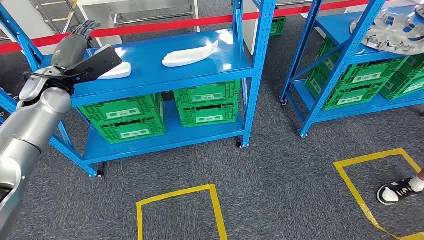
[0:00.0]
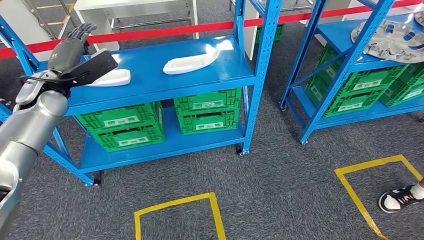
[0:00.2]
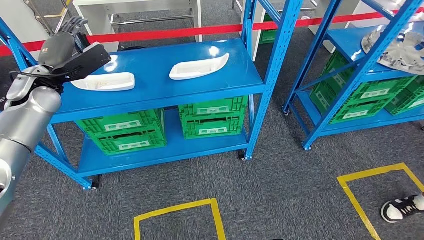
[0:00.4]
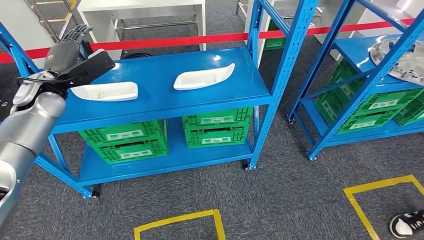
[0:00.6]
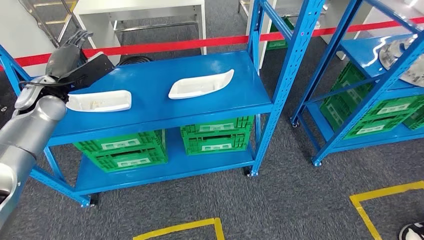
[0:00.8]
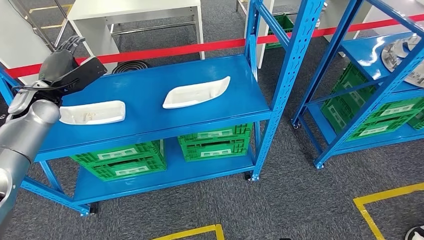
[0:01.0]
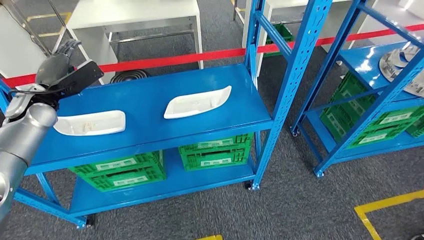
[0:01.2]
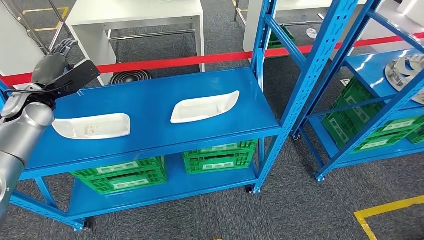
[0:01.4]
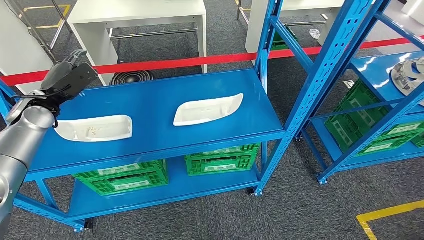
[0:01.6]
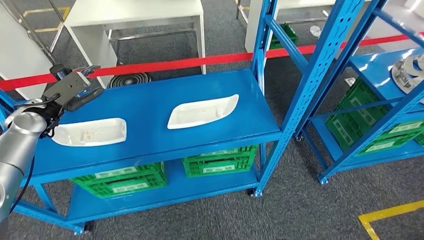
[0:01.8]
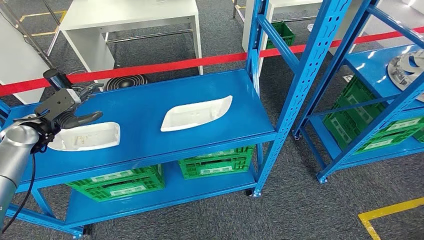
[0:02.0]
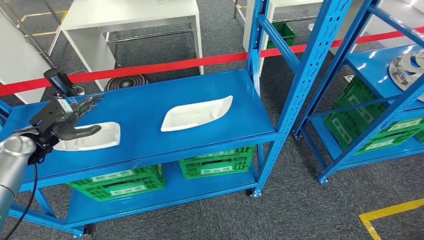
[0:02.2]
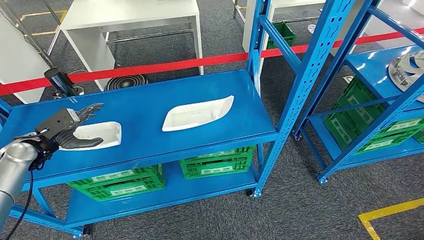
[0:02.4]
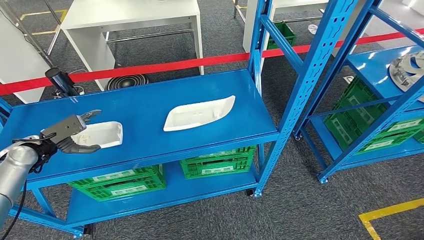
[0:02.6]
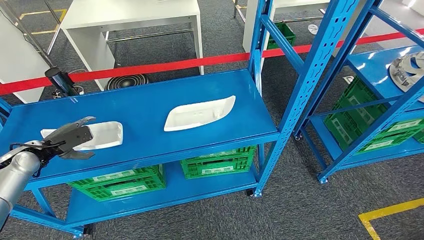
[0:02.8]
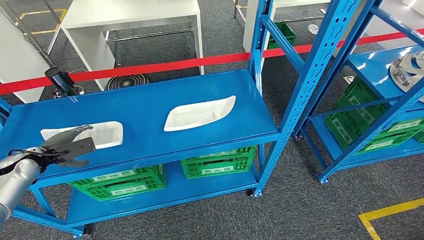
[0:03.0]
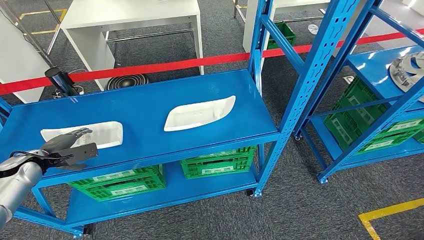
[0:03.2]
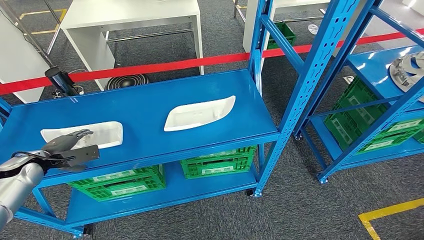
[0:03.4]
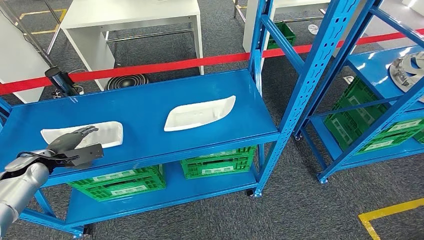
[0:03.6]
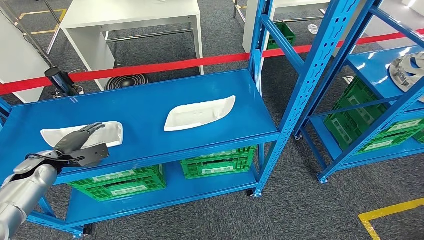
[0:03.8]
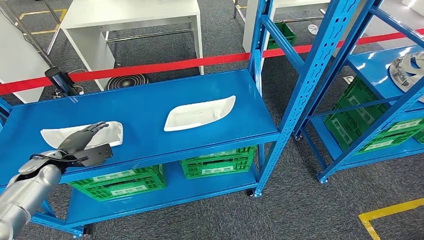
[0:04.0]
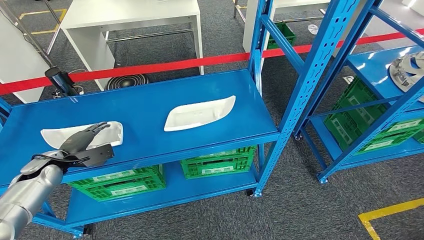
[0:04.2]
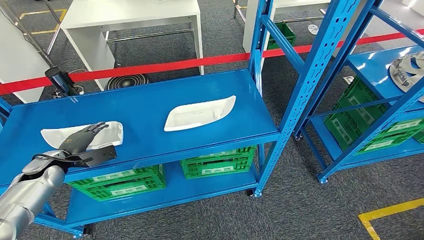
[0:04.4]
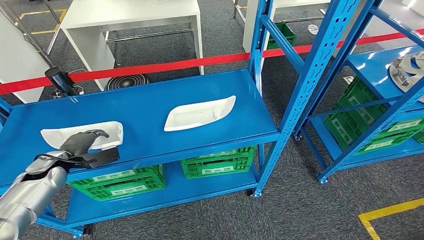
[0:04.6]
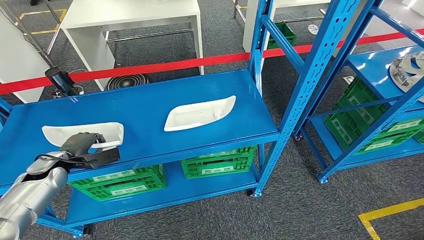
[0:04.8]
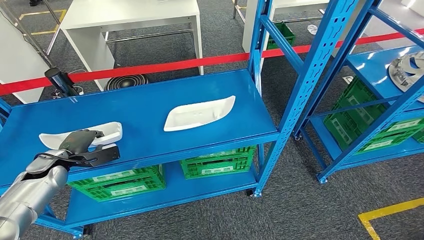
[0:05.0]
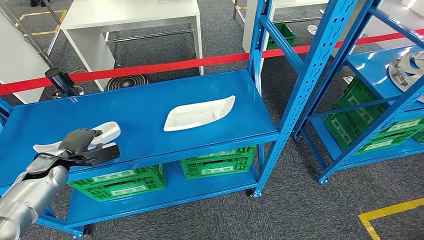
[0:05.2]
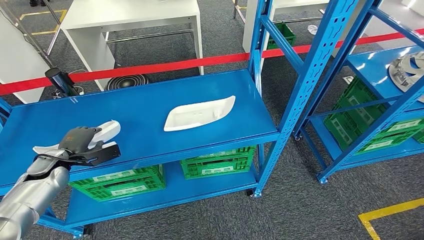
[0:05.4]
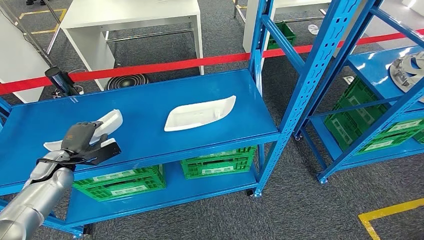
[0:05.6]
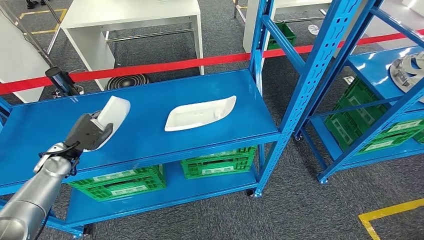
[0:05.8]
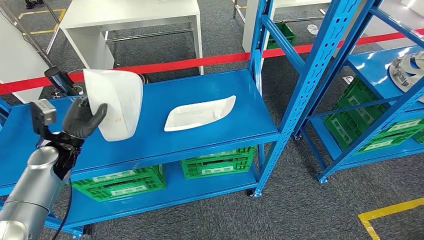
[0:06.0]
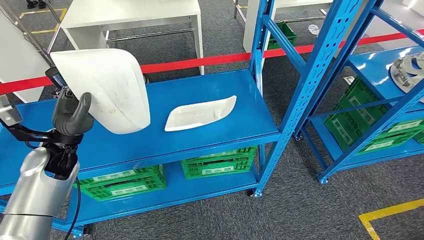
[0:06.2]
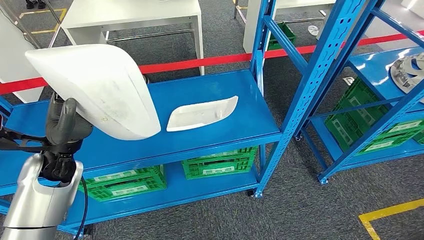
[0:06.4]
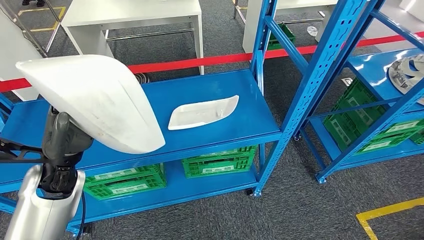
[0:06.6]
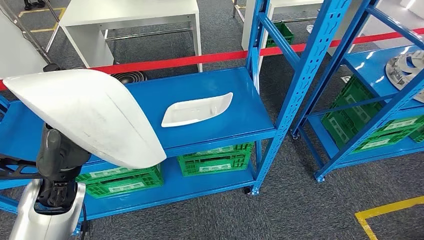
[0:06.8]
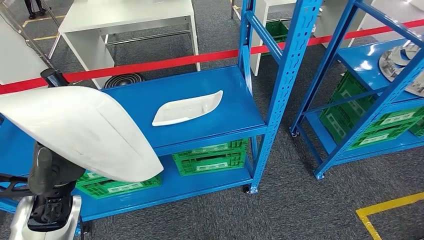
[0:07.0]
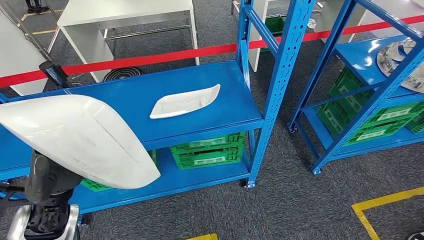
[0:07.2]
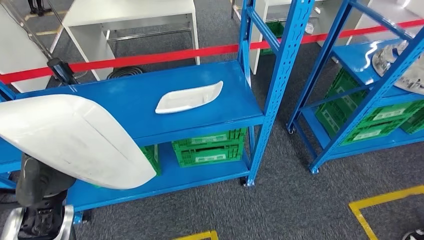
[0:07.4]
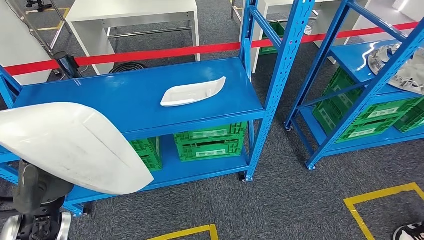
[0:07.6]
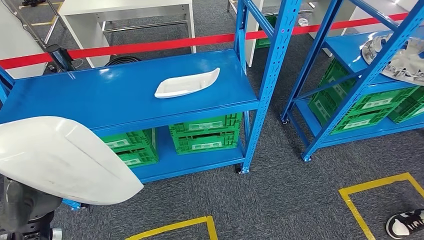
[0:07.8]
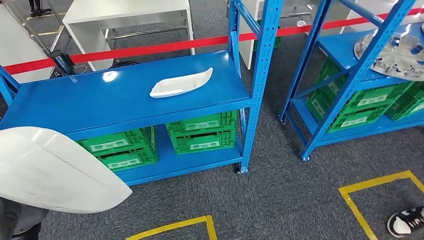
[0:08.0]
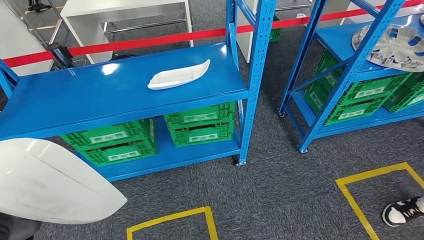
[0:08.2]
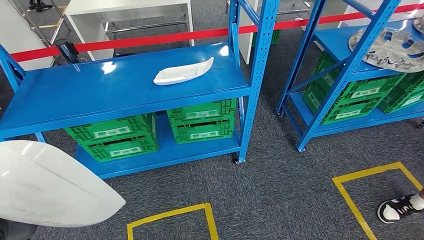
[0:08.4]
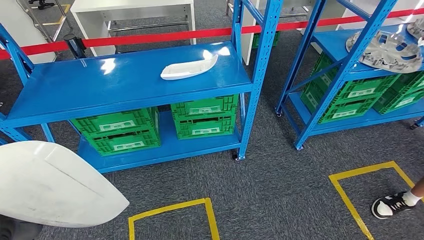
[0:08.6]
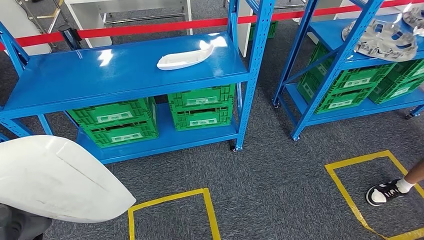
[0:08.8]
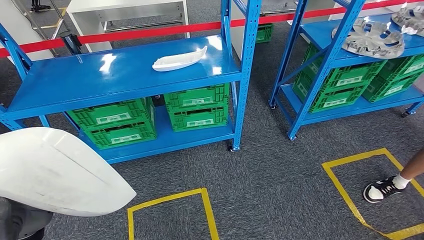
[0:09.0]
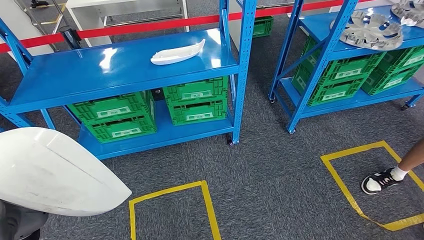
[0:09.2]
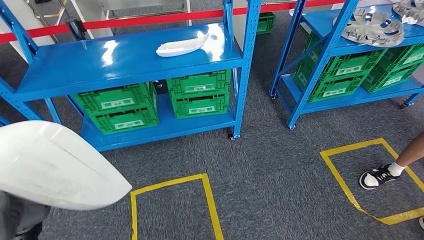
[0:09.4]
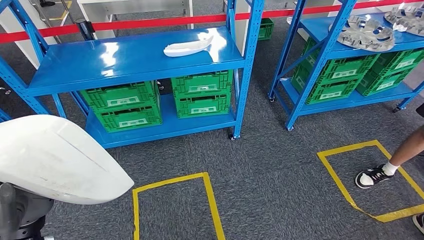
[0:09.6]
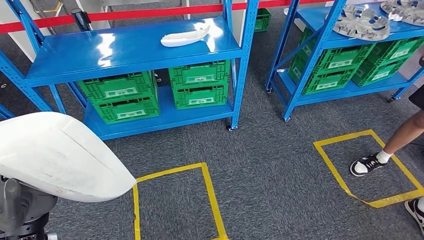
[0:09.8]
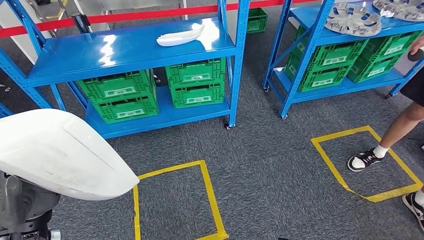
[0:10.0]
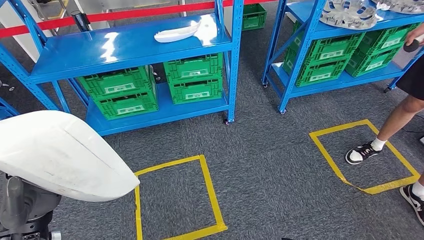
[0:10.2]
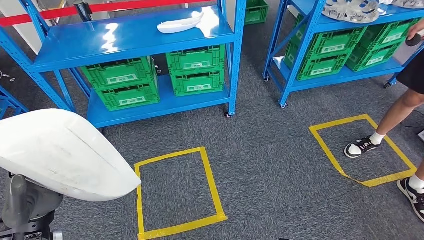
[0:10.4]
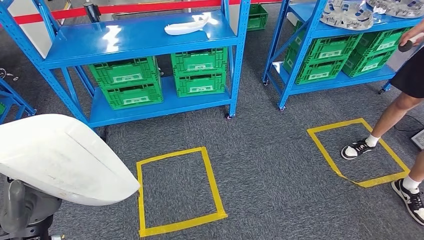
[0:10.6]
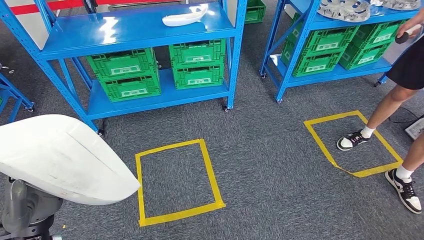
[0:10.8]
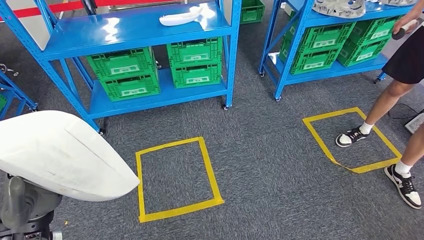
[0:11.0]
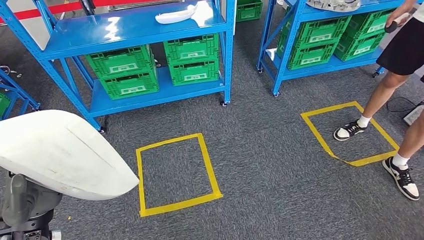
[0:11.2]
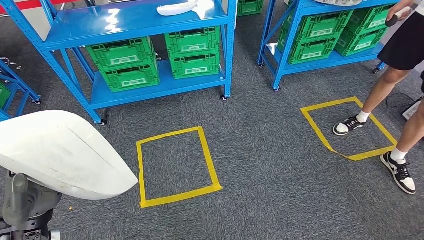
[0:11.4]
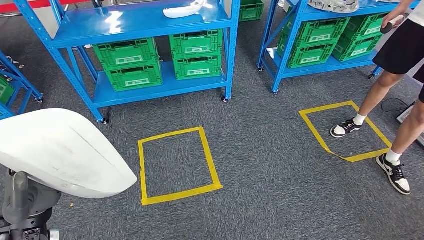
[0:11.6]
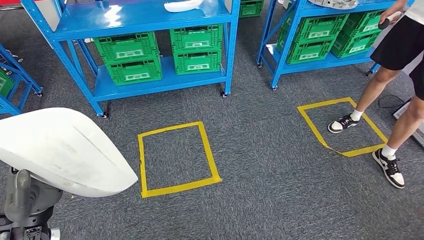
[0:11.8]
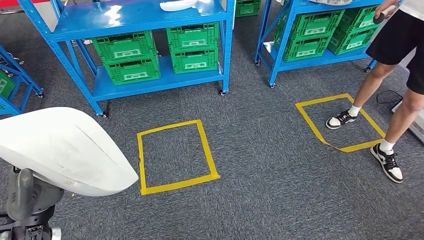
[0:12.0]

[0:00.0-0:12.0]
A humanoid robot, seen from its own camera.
Step, 0:00.0 to 0:07.8: Pick up the small parts from the shelf.
0:03.0 to 0:04.4: The left hand ends up roughly 5 cm from where it was.
0:04.4 to 0:06.0: The left hand moves to the right, roughly 5 cm.

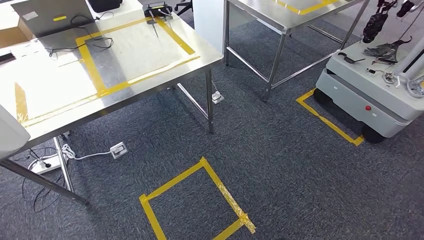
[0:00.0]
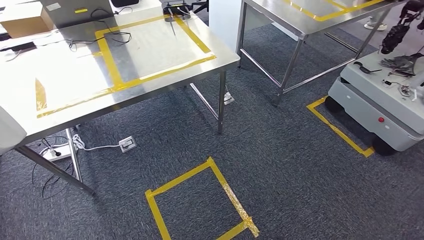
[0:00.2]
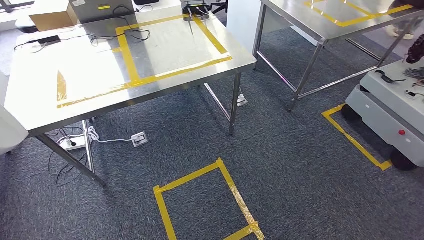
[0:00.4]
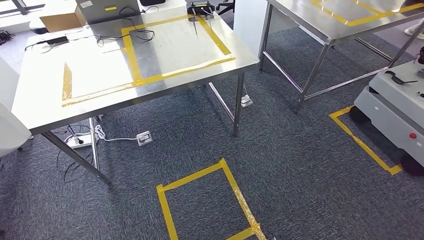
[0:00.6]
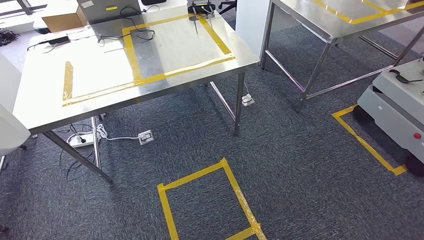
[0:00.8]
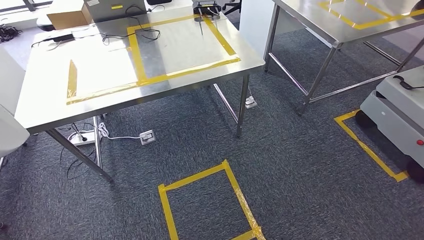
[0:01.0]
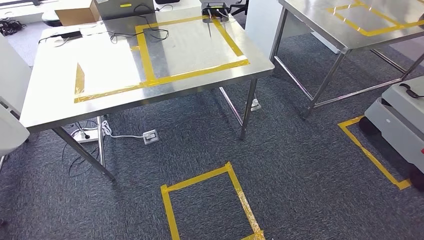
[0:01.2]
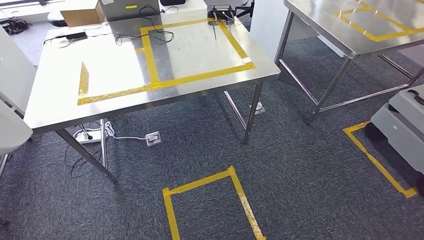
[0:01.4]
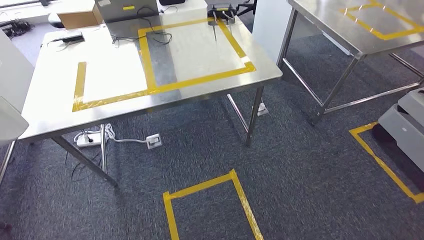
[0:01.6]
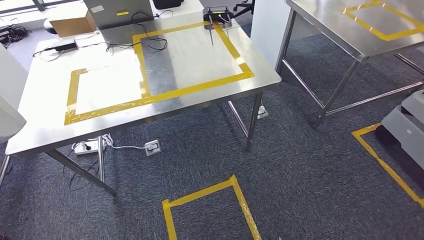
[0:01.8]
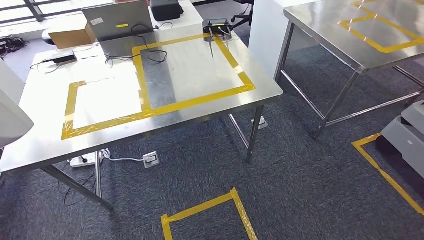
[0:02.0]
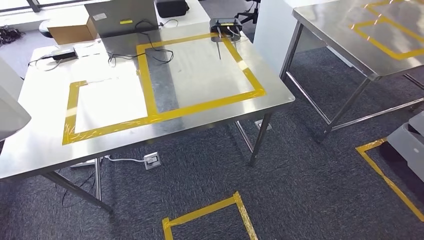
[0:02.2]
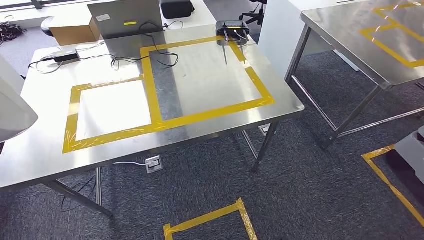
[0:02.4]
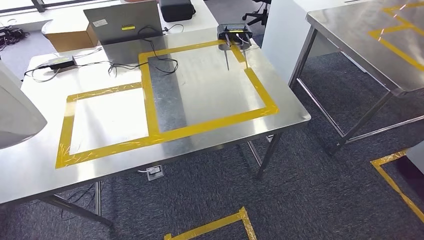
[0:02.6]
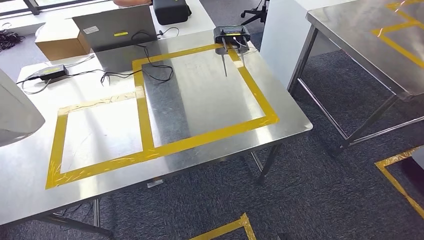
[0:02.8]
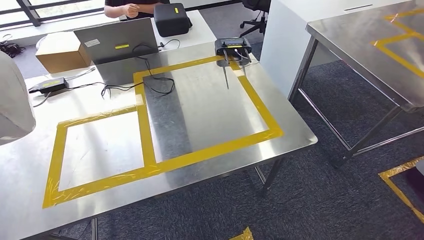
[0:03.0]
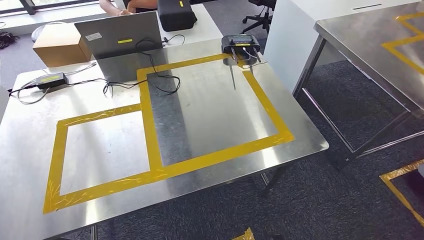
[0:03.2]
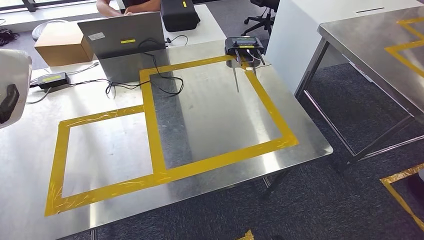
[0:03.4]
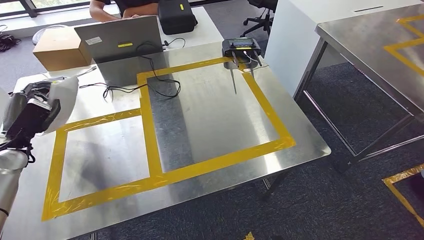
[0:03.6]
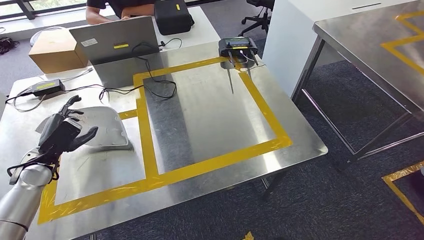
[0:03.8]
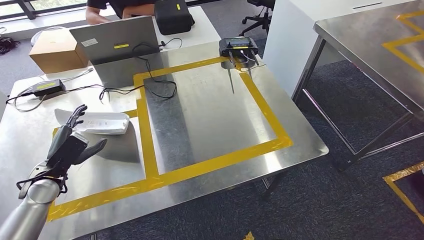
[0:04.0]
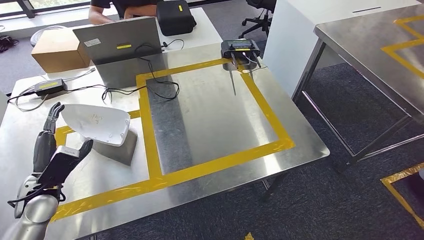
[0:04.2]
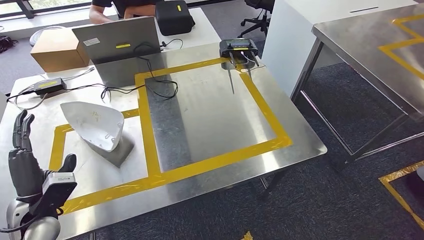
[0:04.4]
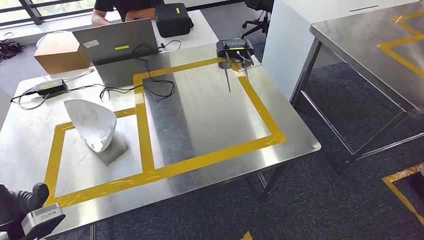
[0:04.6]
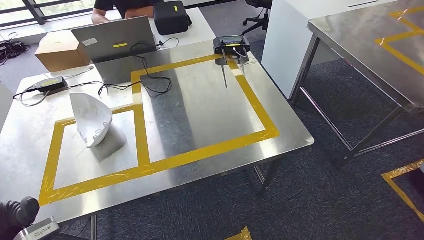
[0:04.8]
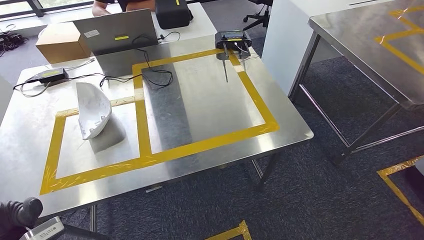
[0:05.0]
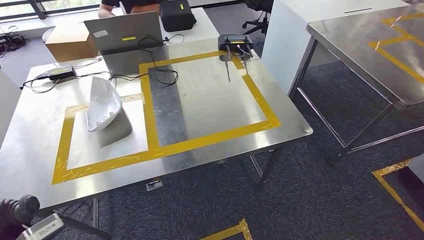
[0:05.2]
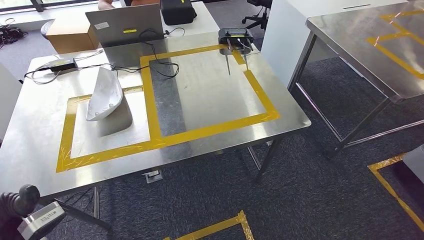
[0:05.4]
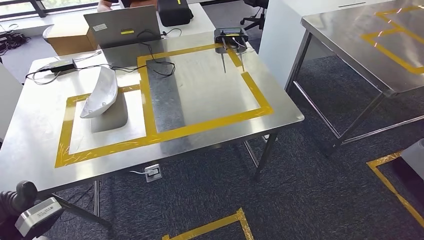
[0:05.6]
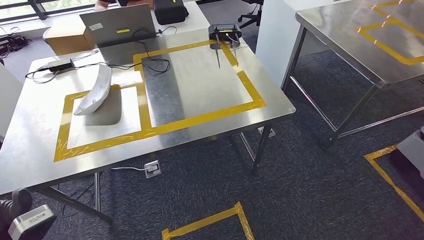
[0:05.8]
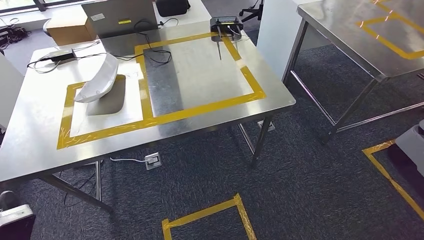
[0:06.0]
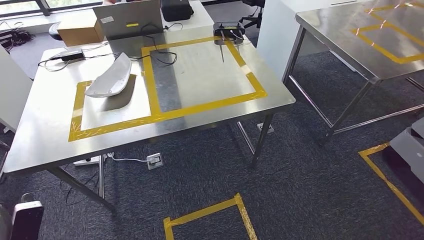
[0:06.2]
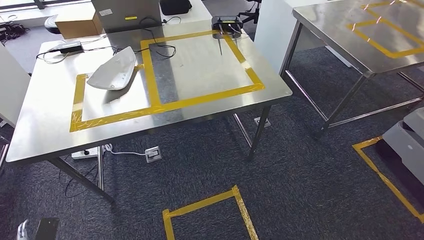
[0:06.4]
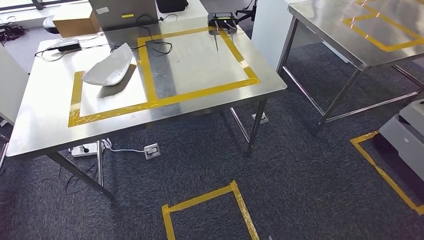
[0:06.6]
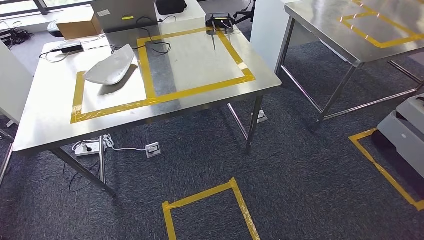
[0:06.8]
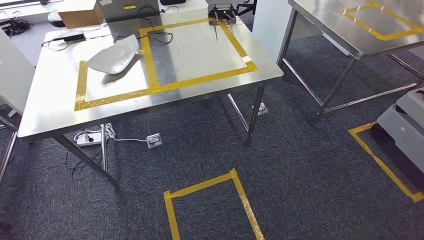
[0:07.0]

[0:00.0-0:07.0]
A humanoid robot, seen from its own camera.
Step, 0:01.0 to 0:04.8: Insert the small parts into the corresponding slots on the workbench.
